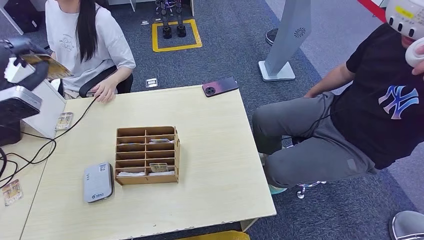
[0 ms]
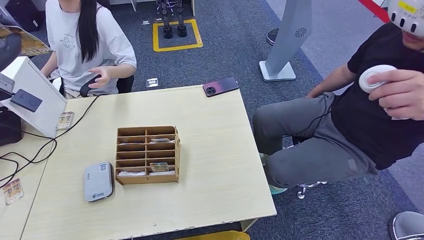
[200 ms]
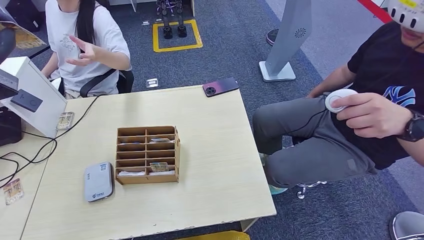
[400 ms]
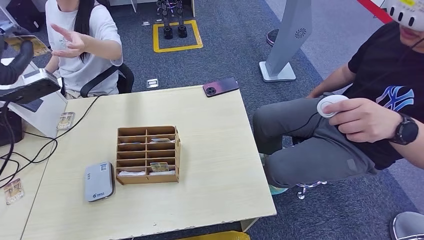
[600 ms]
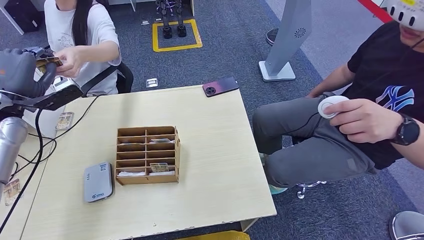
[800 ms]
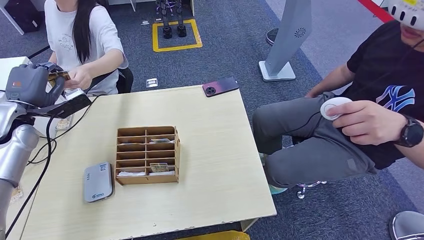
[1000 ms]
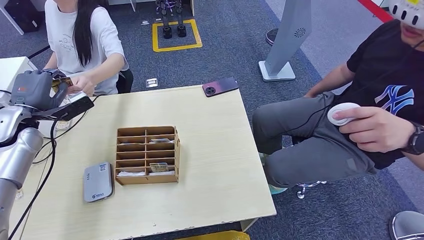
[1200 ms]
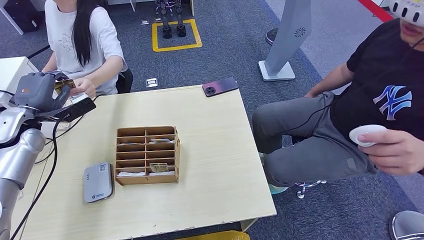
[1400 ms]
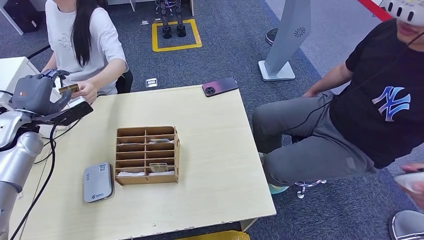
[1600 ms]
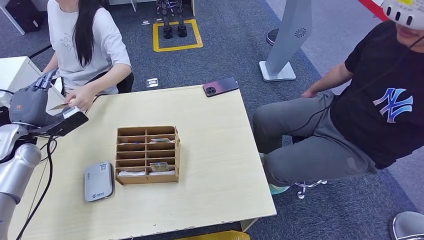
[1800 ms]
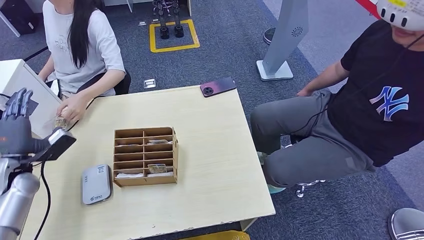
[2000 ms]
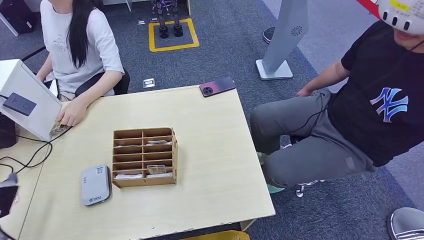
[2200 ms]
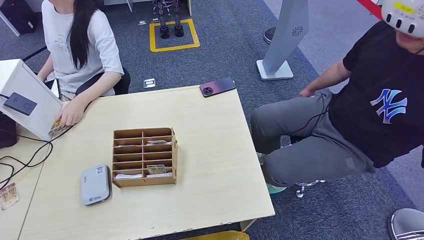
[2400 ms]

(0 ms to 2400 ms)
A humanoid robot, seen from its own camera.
Step, 0 ms - 2400 ms: Hand the room key to the person.
0 ms - 1200 ms: The left hand moves downward and forward, approximately 15 cm.
